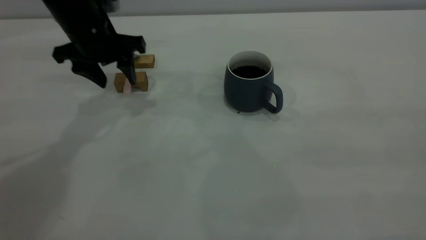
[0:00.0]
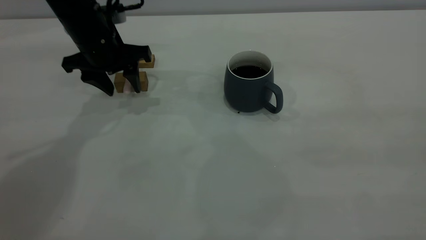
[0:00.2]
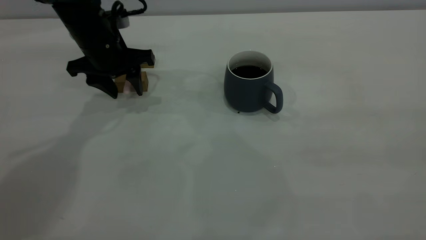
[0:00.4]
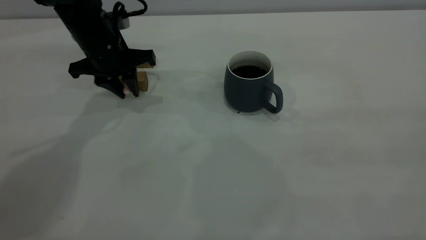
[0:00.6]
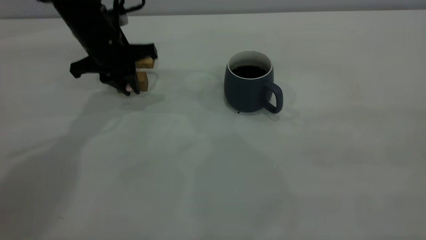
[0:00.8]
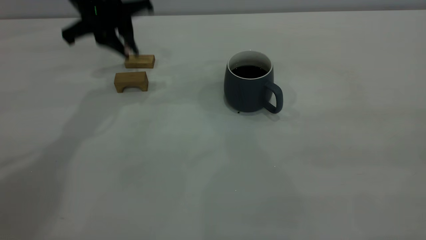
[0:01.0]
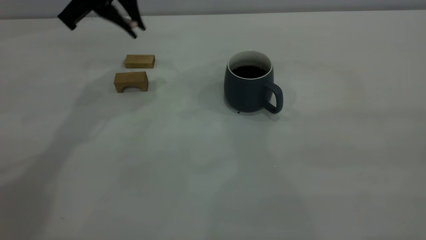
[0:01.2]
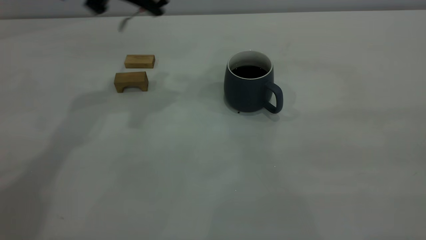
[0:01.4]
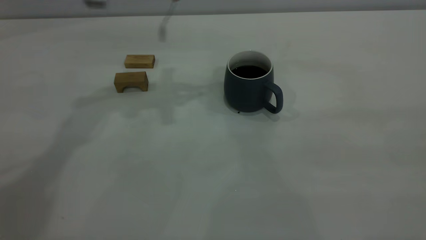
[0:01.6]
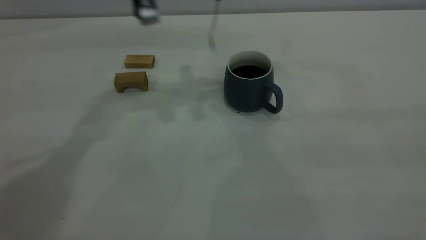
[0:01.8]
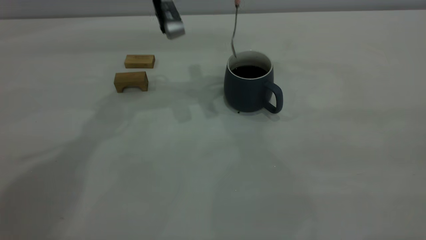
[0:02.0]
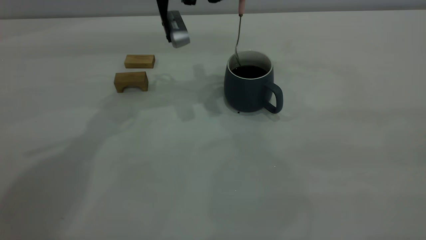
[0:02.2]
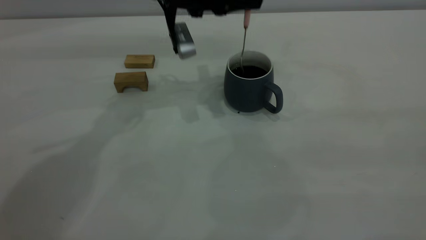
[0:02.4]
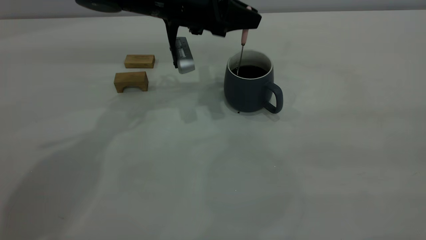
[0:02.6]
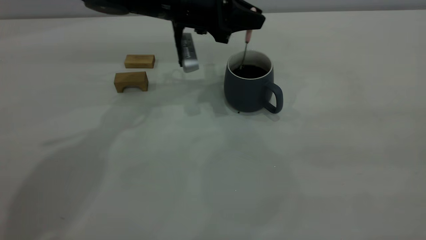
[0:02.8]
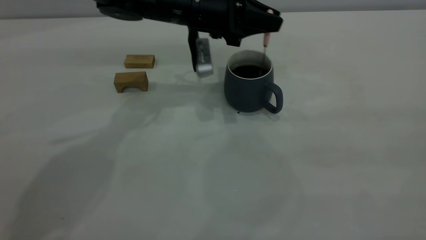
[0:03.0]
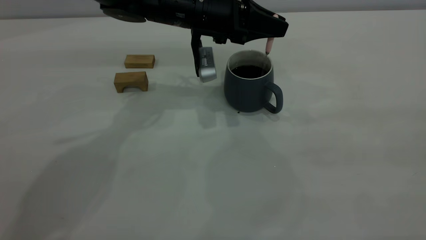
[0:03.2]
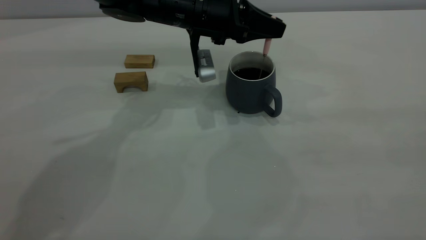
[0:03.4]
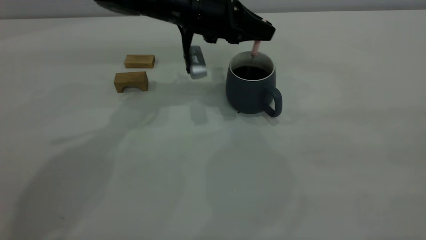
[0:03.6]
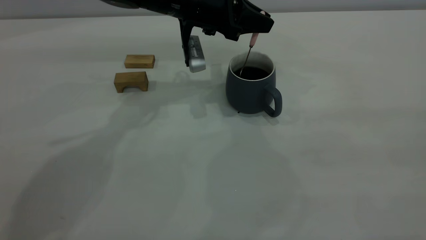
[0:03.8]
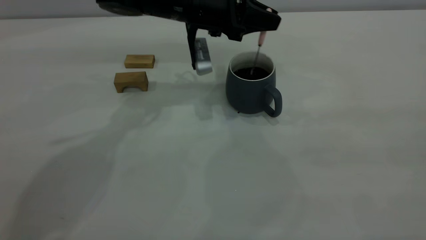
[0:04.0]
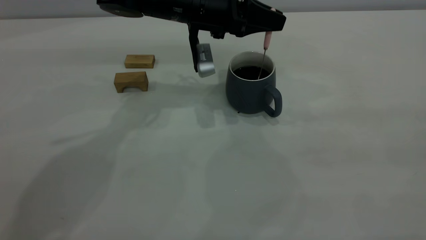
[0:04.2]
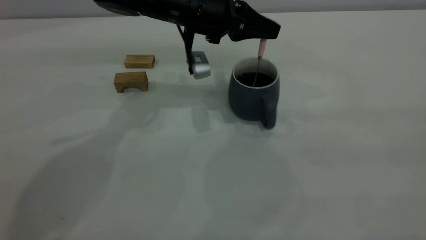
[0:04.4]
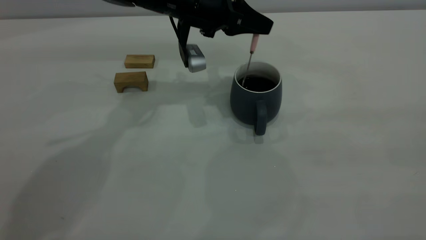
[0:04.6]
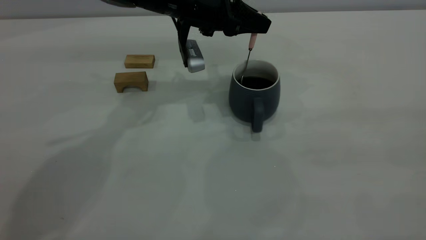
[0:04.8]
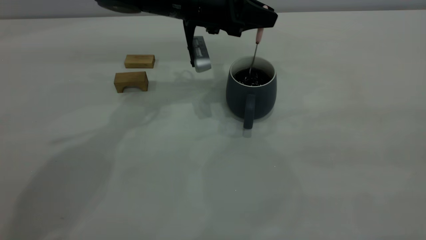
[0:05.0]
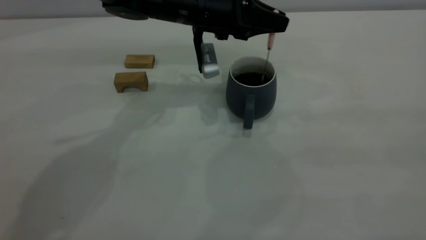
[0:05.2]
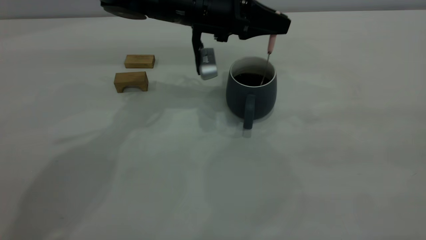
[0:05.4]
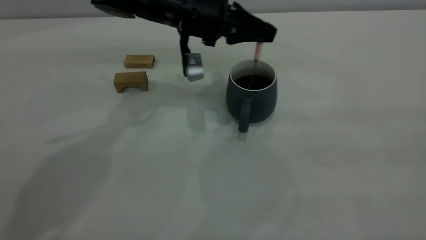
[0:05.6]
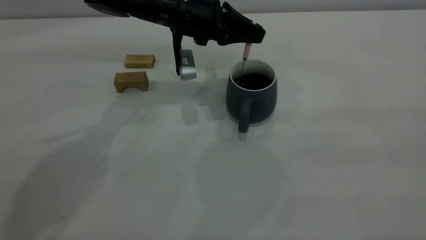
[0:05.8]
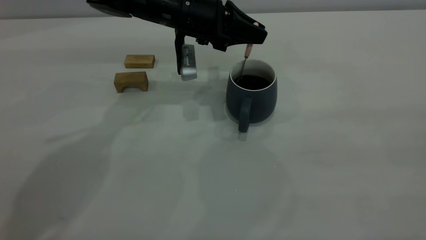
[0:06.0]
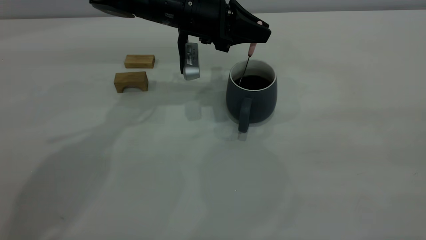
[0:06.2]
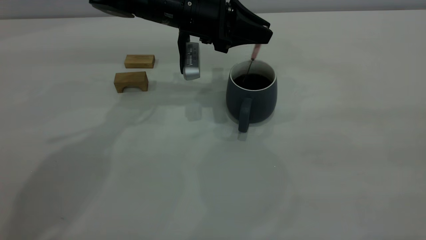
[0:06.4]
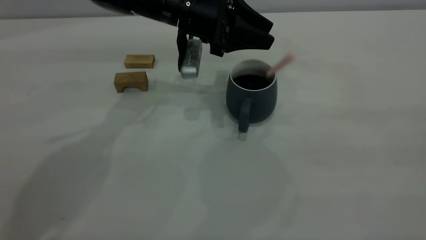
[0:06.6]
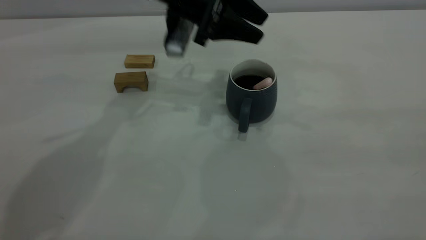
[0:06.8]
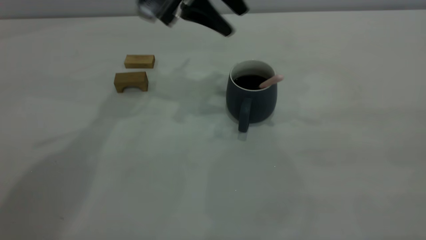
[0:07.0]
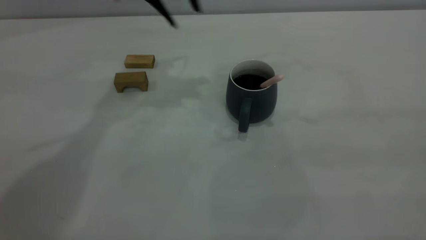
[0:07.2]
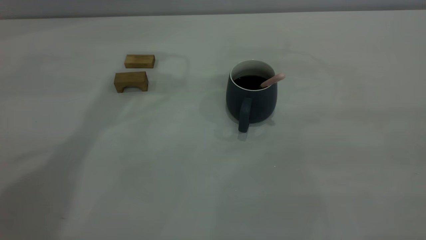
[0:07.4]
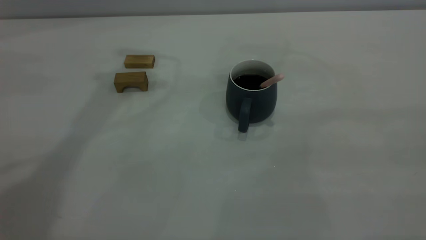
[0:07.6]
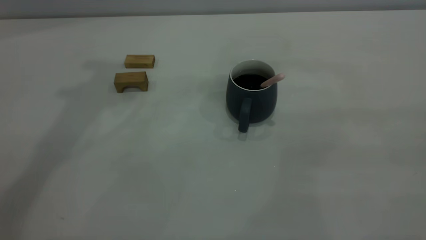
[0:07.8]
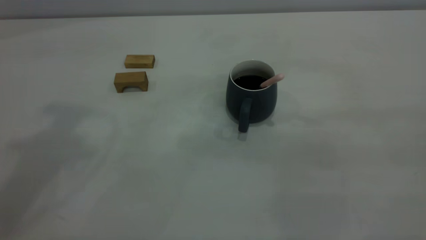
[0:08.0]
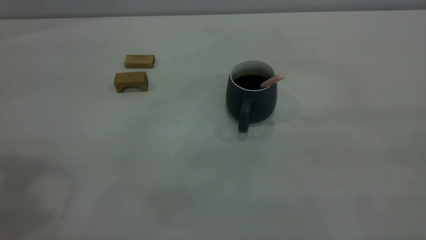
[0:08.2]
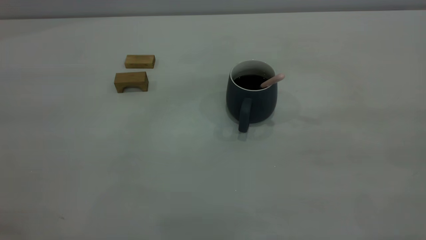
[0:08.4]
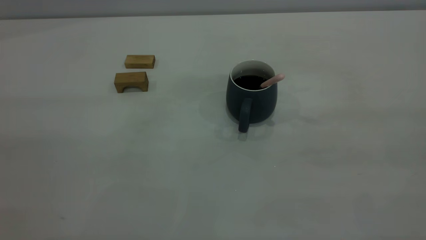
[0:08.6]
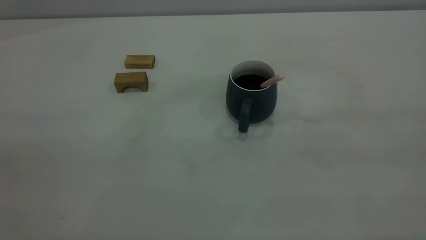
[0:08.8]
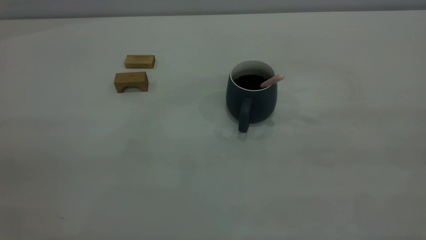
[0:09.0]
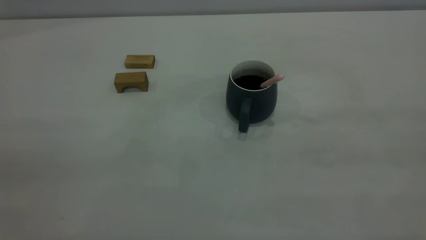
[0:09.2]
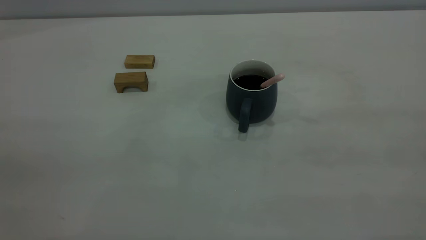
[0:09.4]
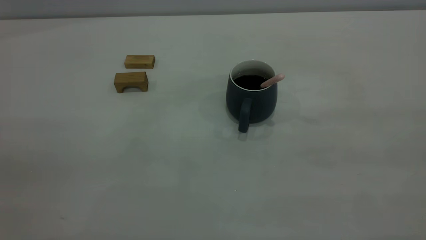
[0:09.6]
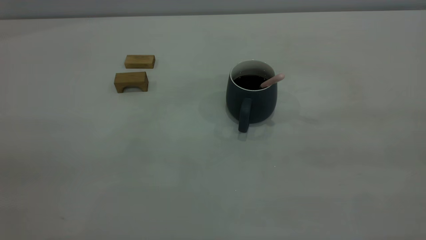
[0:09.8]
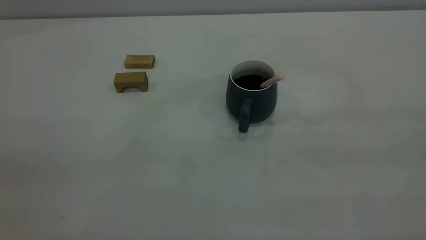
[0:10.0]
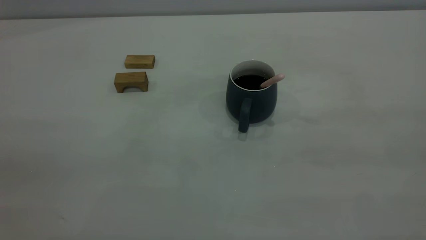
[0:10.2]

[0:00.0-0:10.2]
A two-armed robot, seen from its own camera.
Step, 0:01.0 to 0:06.6: Stir the coffee in the cup.
0:00.0 to 0:01.4: The left gripper travels upward by approximately 10 cm, and closes.
0:01.4 to 0:03.0: The left gripper goes about 15 cm downward and to the right.
0:04.4 to 0:05.8: The grippers make only small movements.
0:05.8 to 0:07.2: The left gripper travels upward by approximately 15 cm, and opens its fingers.

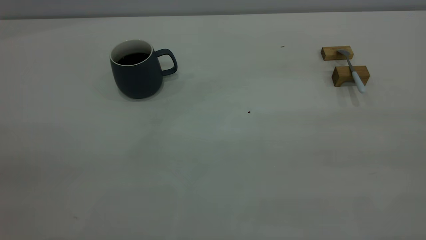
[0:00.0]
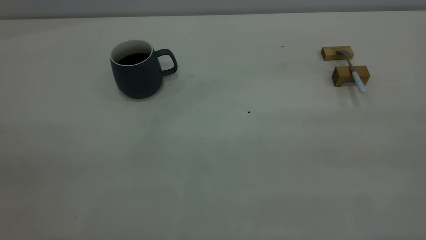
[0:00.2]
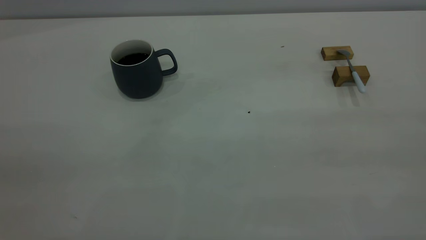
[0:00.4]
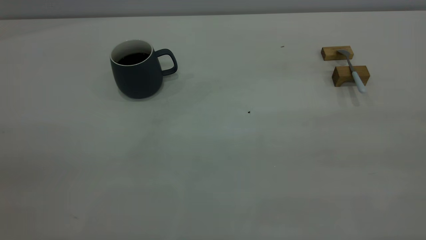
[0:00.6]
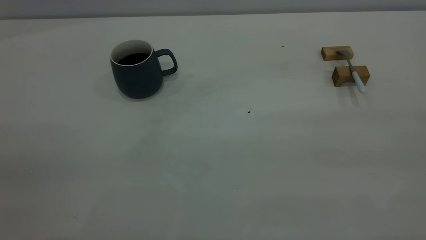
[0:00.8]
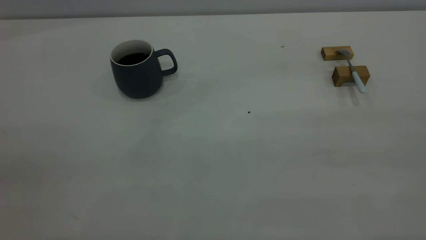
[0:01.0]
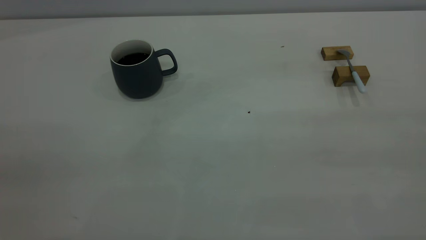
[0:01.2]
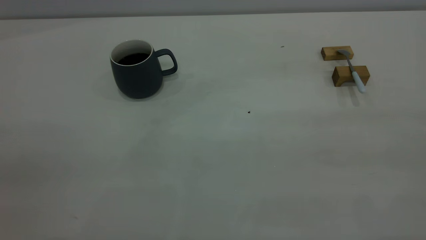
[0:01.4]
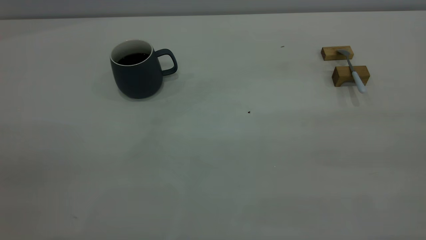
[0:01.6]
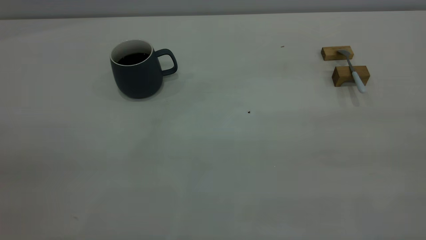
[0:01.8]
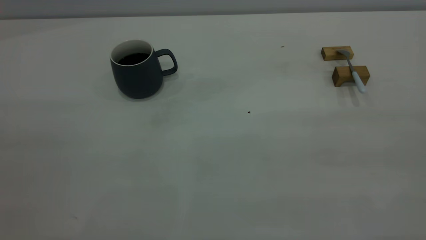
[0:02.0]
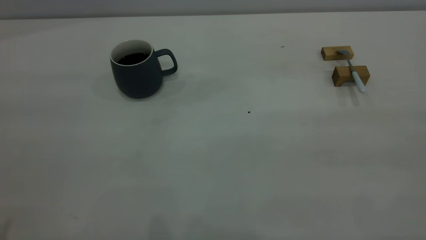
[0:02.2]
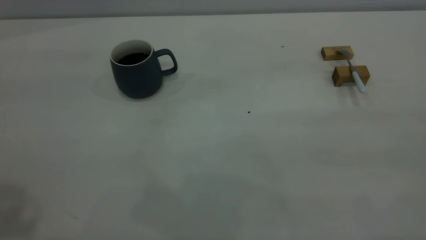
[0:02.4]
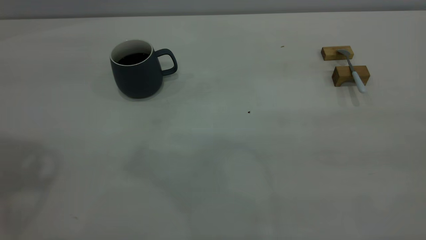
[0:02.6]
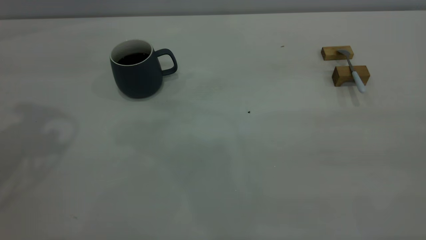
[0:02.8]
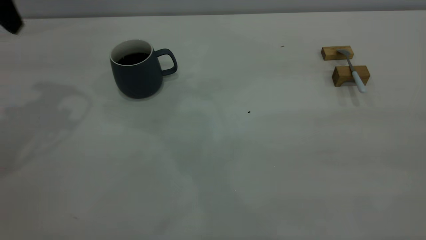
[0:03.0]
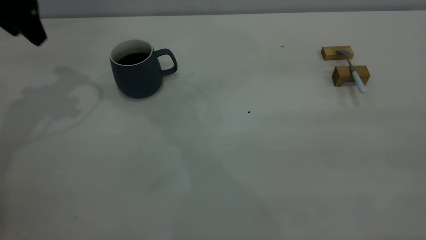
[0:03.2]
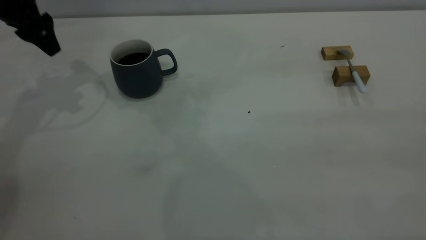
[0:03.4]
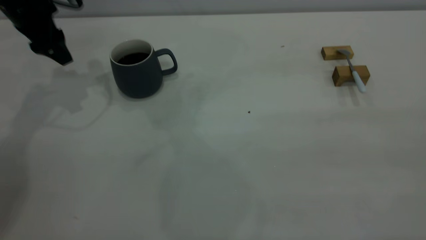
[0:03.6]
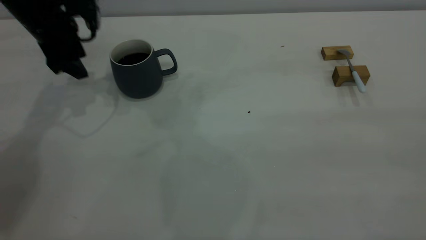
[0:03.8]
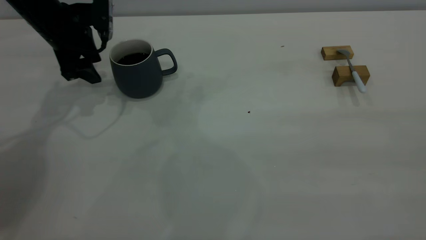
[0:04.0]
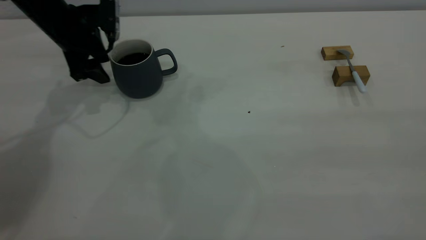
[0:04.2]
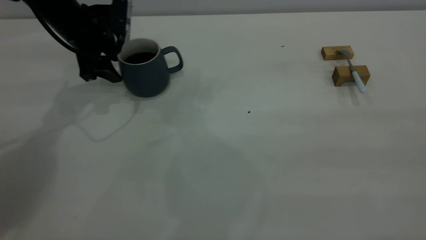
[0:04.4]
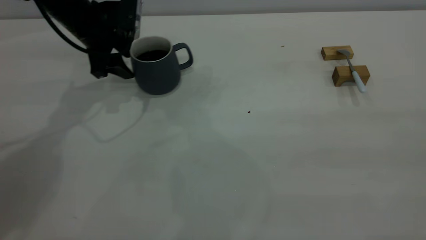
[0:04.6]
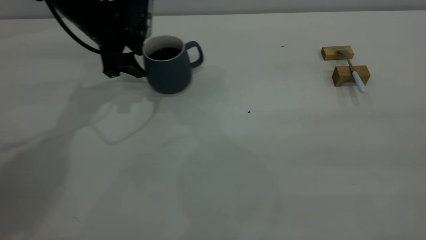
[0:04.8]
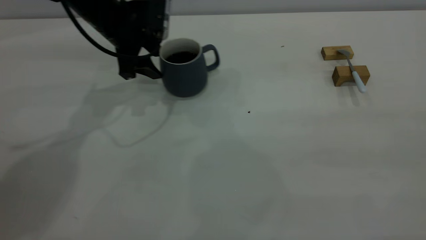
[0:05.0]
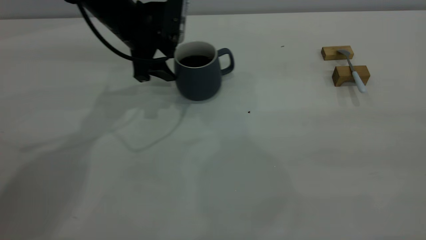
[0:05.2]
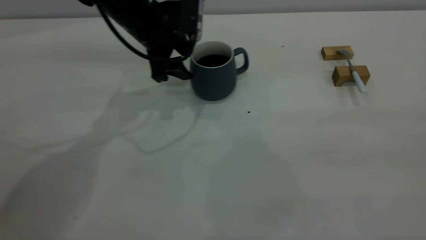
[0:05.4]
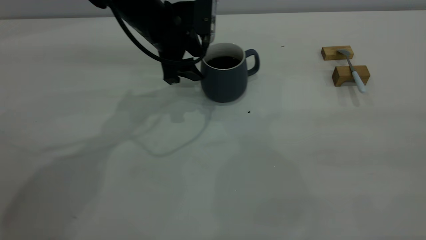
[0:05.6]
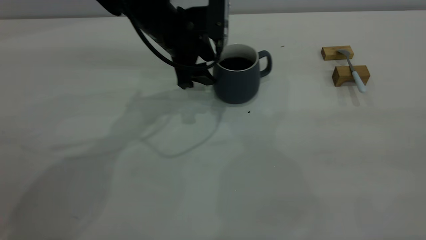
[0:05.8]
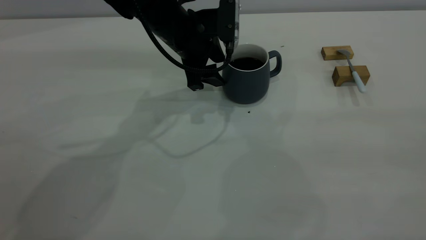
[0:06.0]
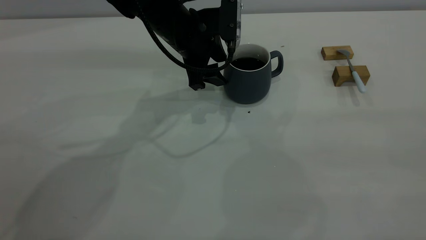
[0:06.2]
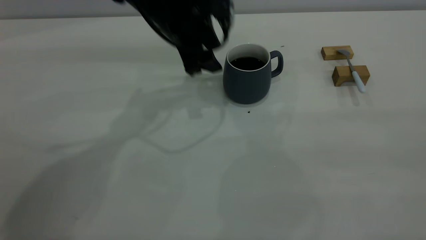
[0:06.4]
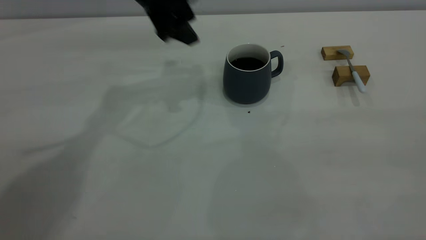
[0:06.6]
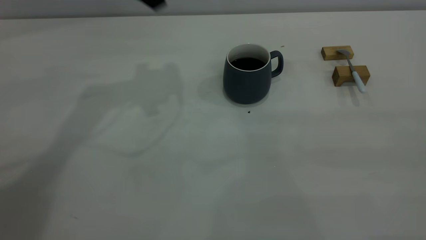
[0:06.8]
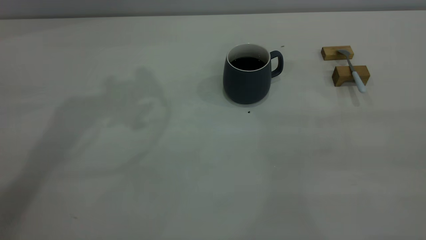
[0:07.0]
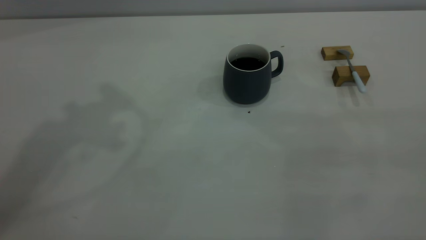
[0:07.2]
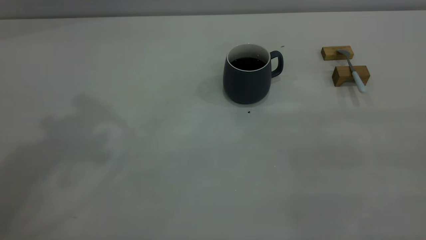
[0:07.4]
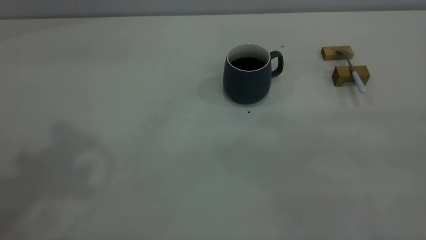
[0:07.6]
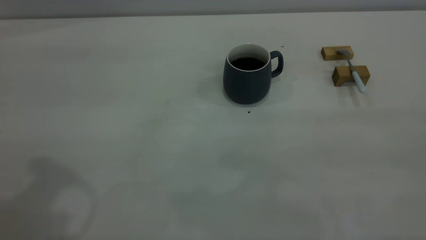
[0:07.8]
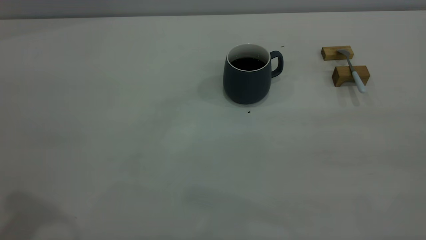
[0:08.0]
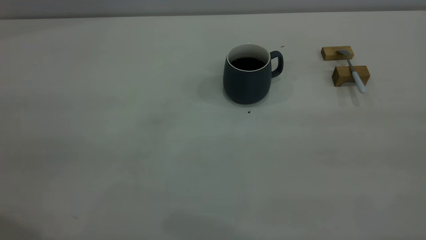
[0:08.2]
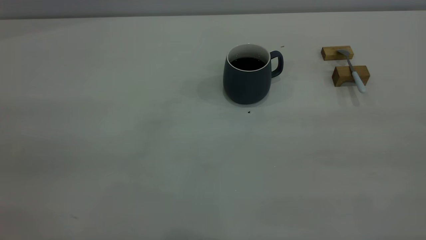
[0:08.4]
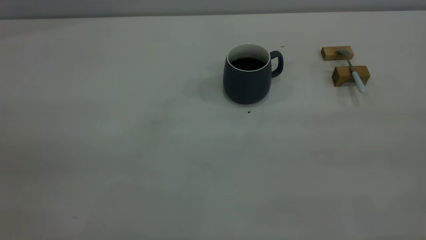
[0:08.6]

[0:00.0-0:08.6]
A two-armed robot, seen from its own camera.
Step, 0:00.0 to 0:06.4: Move the cup with coffee to the center of view.
0:00.0 to 0:01.4: The two grippers keep their place.
0:02.8 to 0:04.4: The left gripper moves downward and forward, roughly 25 cm.
0:04.4 to 0:05.8: The left gripper is displaced to the right by about 15 cm.
0:05.8 to 0:07.2: The left gripper is displaced upward by some 35 cm.
